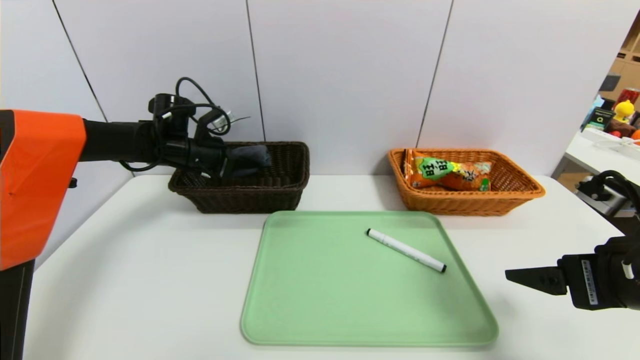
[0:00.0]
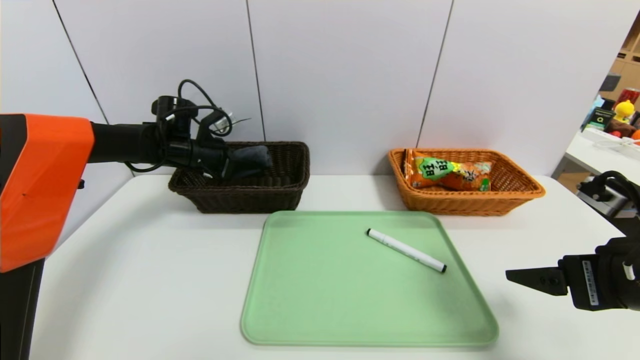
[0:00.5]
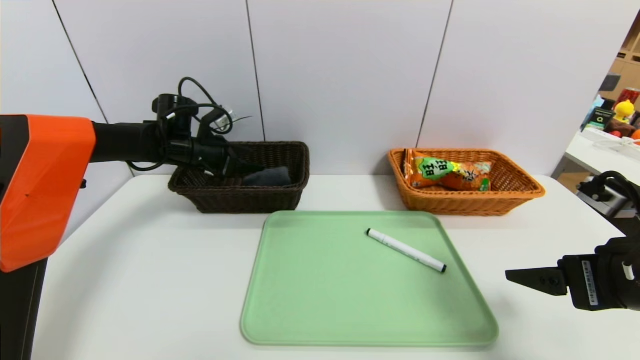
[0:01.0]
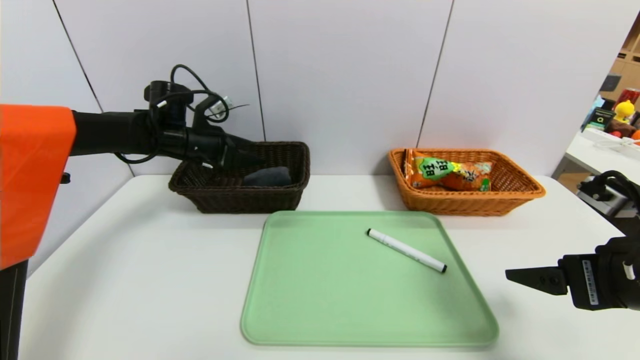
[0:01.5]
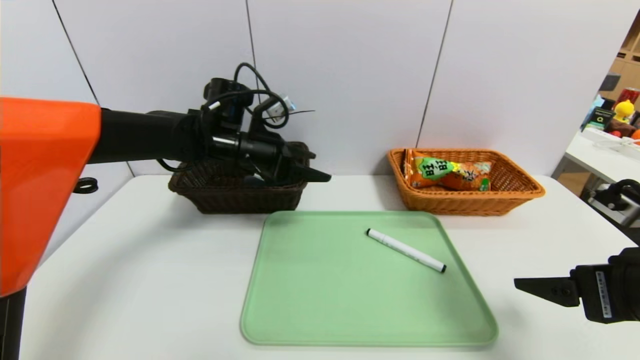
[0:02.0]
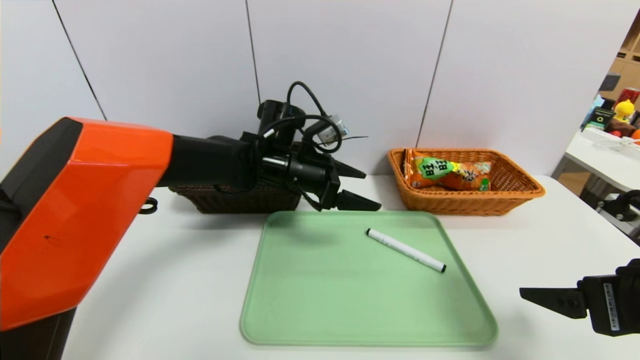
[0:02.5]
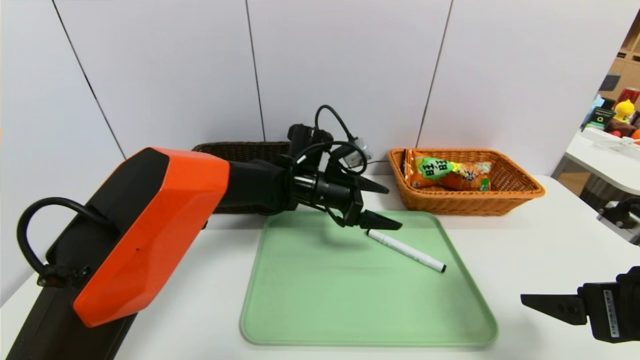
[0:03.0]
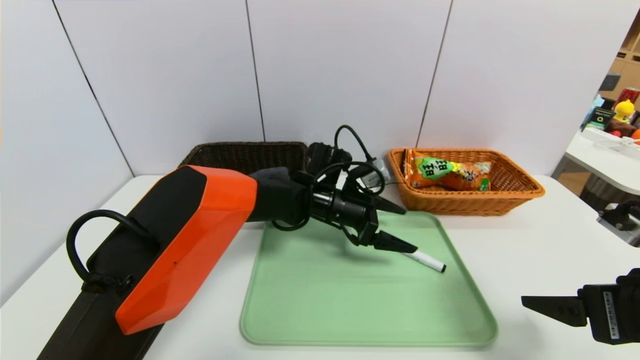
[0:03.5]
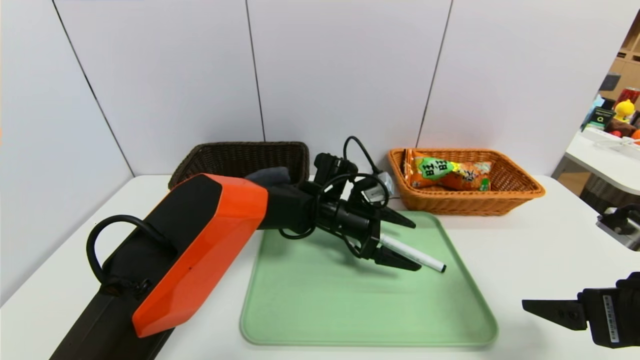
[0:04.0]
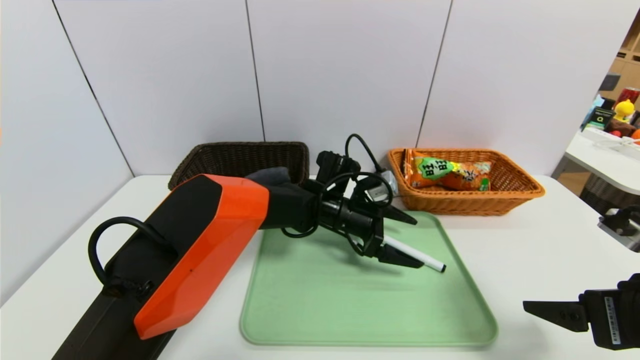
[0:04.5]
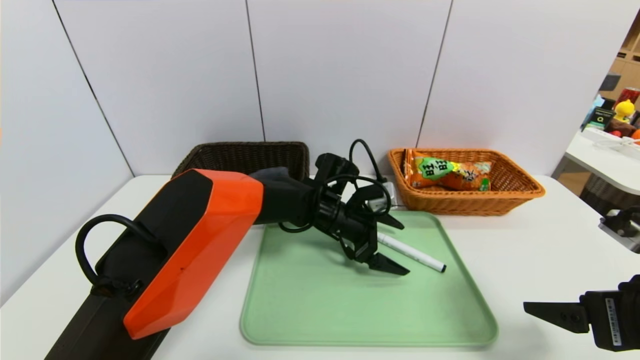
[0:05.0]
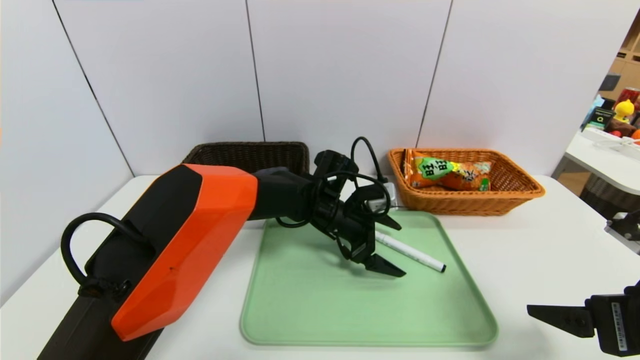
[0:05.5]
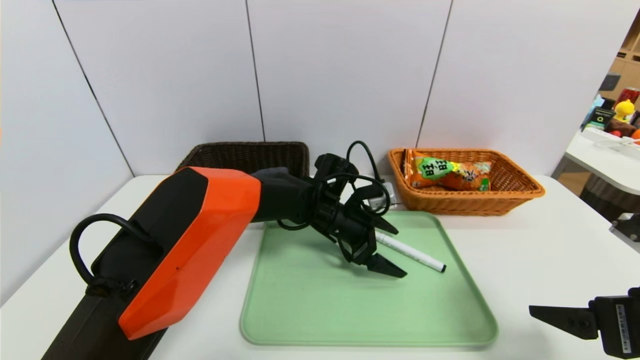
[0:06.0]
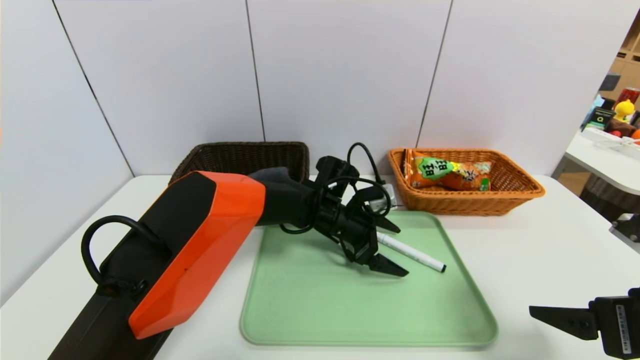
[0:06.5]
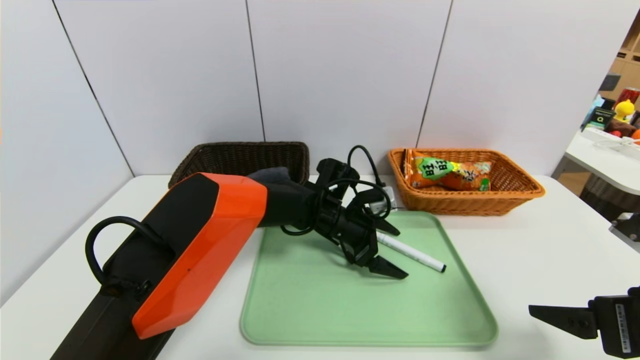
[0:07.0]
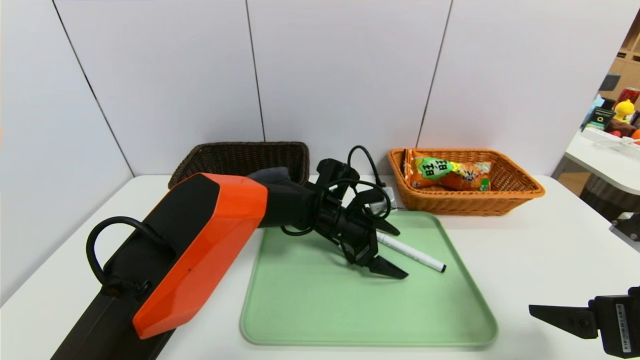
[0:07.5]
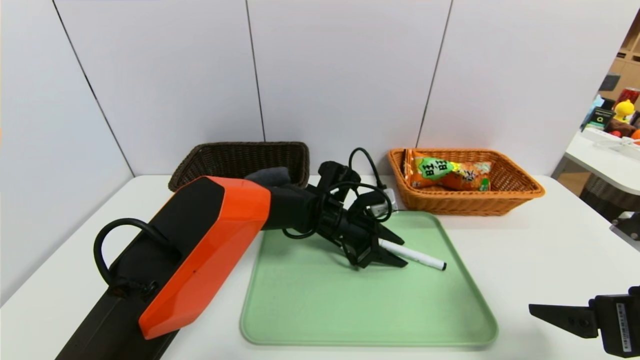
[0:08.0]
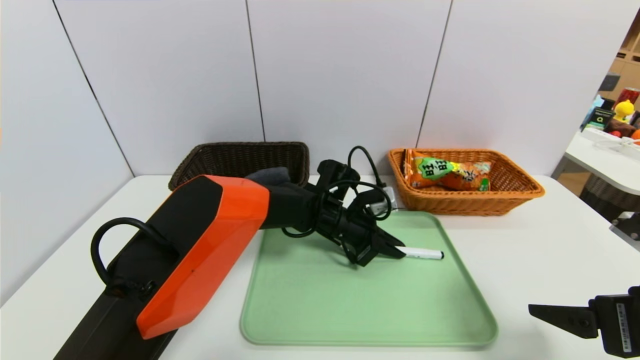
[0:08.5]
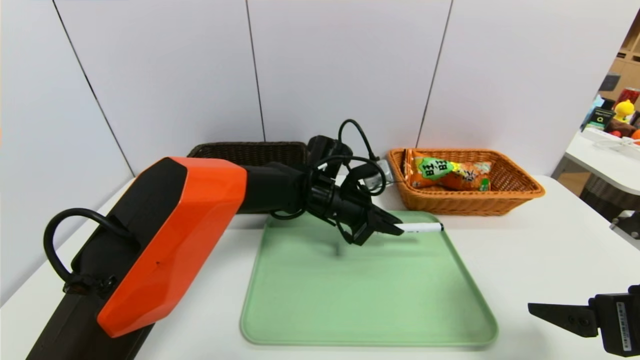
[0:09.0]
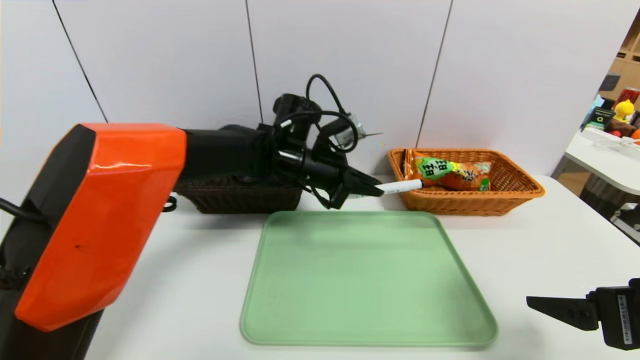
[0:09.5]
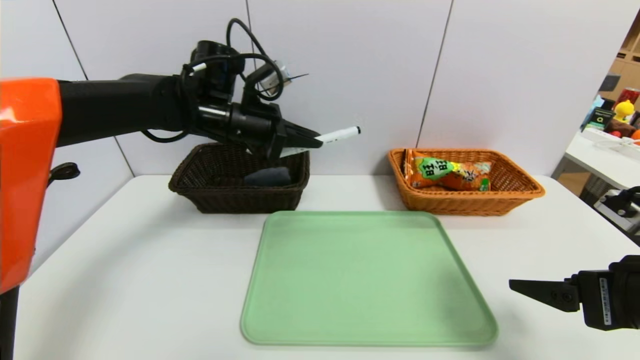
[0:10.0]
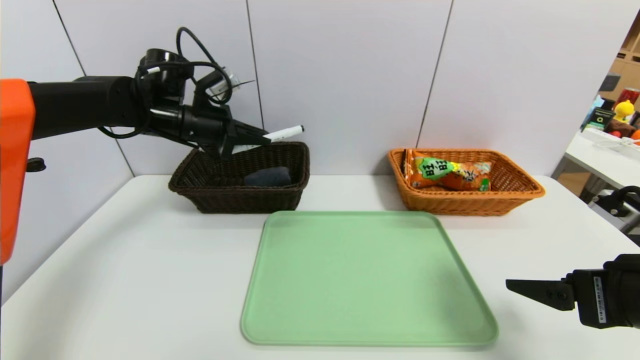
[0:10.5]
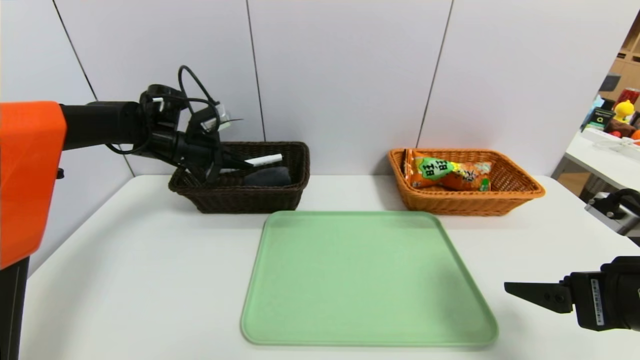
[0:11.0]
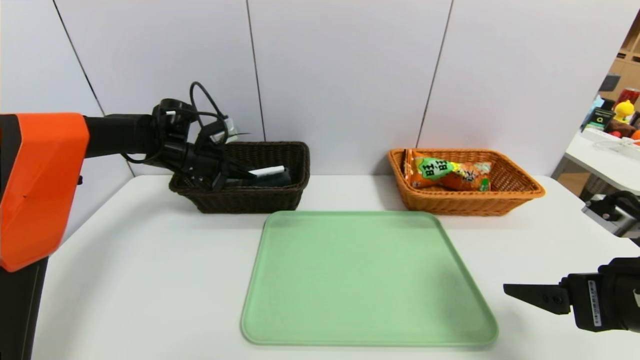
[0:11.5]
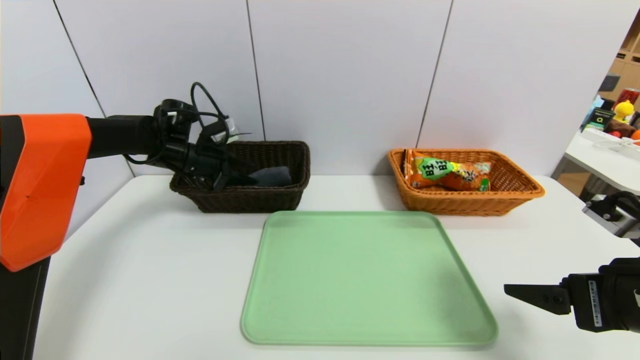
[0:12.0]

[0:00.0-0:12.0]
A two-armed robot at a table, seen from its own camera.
Task of the whole recording: place the food in the right basket with the right gripper, and place the non food items in the left basket with the left gripper.
0:00.0 to 0:02.0: The left gripper heads to the right and backward, covering approximately 15 cm, and opens its fingers.
0:02.0 to 0:04.0: The left gripper moves to the right and downward, some 20 cm.
0:04.0 to 0:06.0: There are only small adjustments of the grippers.
0:06.0 to 0:08.0: The left gripper closes its fingers.
0:08.0 to 0:10.0: The left gripper travels upward and to the left by some 25 cm, and closes its fingers.
0:10.0 to 0:12.0: The left gripper is displaced to the left, downward and forward by approximately 15 cm, and opens.

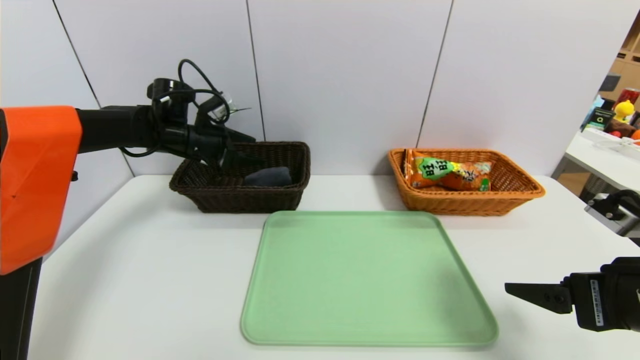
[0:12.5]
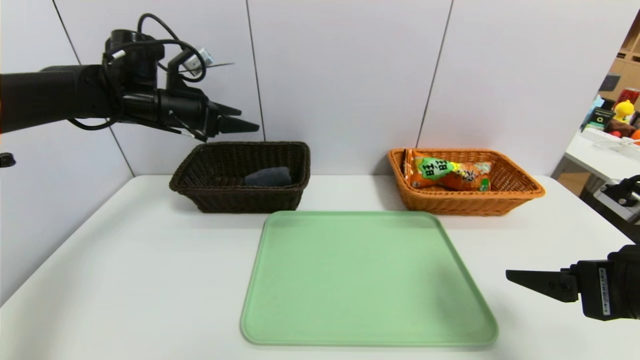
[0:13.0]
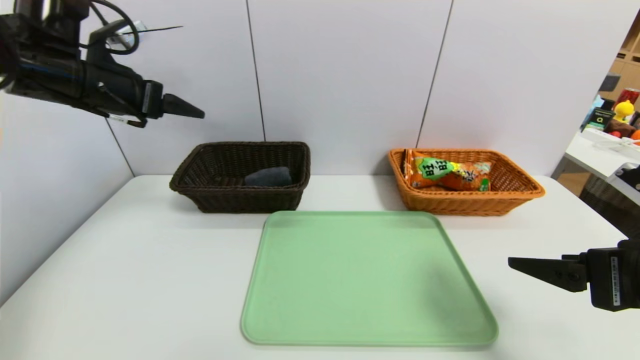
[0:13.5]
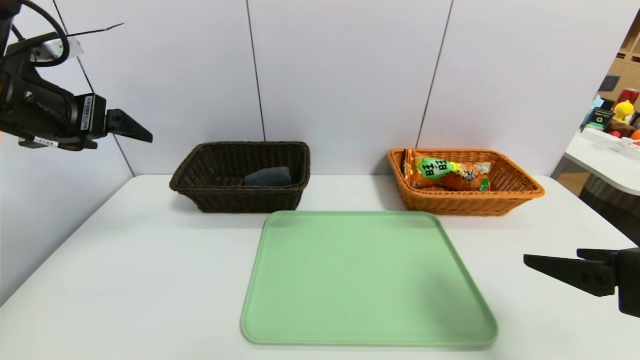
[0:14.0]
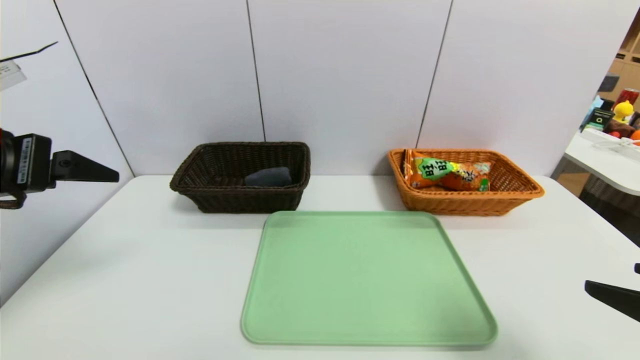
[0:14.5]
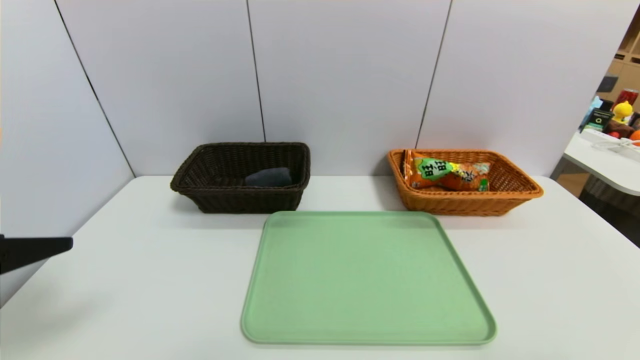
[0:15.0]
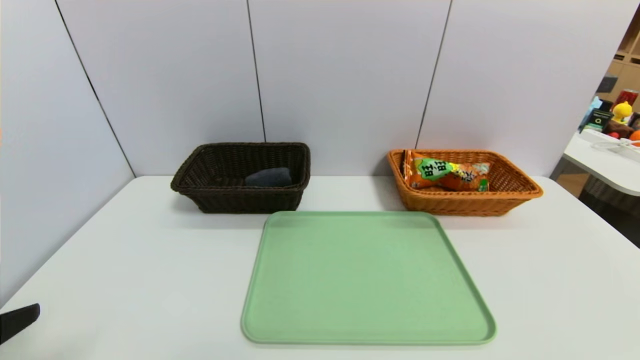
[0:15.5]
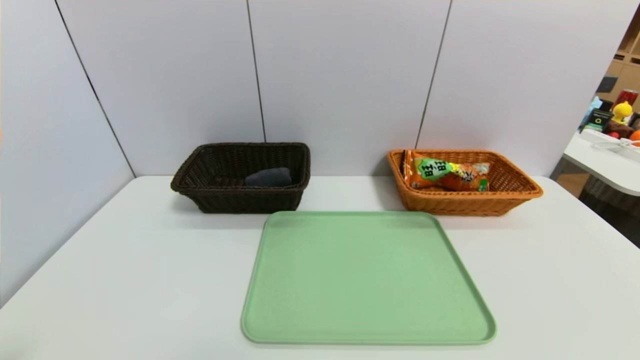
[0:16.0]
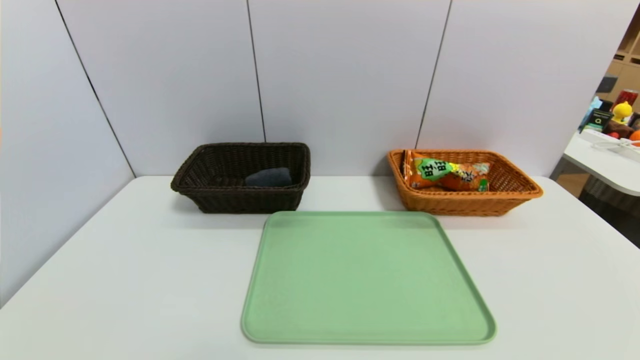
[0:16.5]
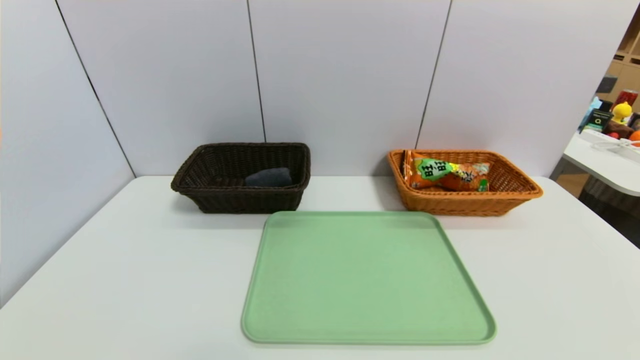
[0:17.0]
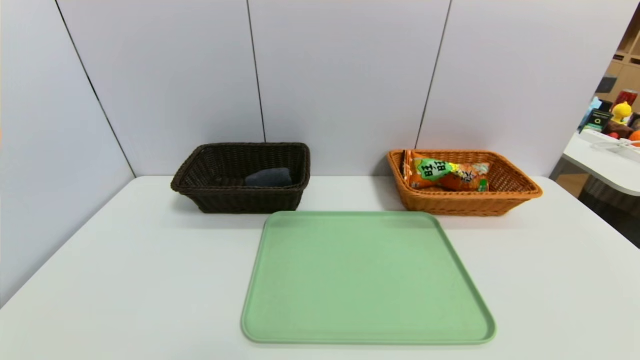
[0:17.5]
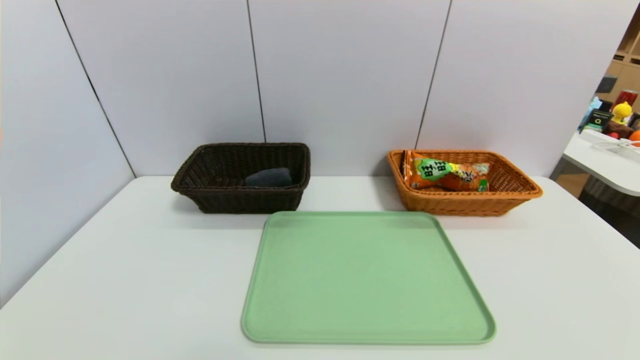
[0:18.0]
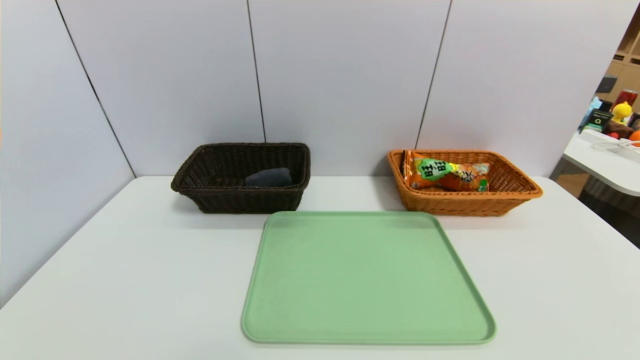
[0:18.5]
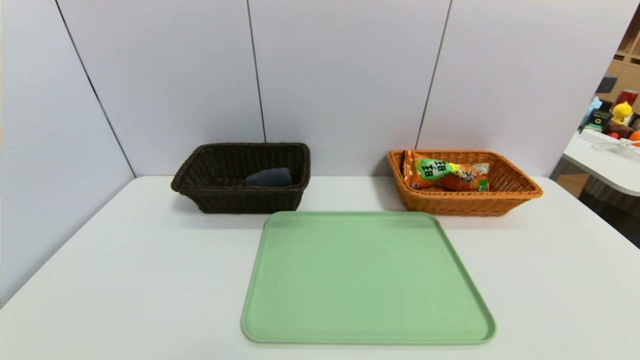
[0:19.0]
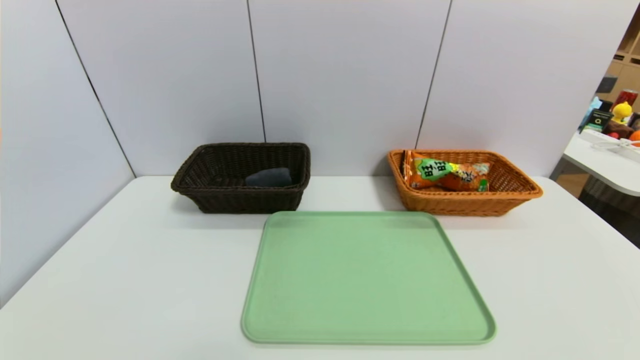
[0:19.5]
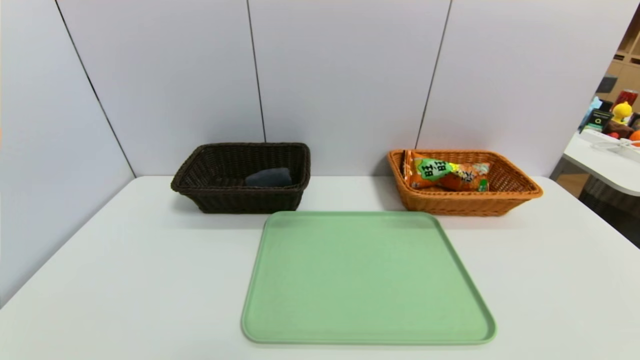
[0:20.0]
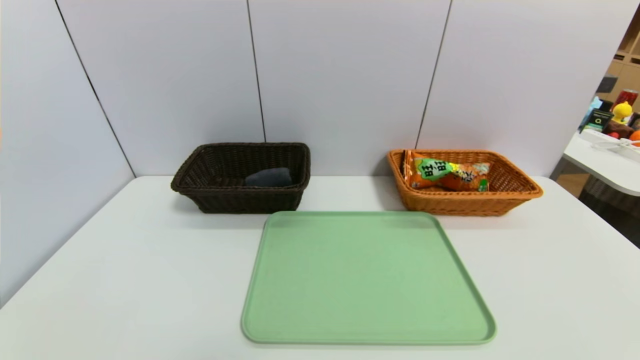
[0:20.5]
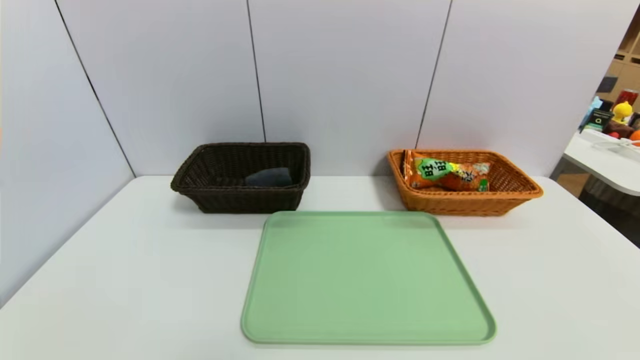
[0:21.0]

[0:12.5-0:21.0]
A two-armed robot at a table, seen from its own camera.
Task of the whole recording: place the food in the right basket with the right gripper, and place the non food items in the left basket with the left gripper.
0:12.5 to 0:14.5: The left gripper moves backward, approximately 30 cm. The right gripper moves backward, roughly 10 cm.
0:14.5 to 0:16.5: The right gripper travels backward by roughly 15 cm. The left gripper heads backward and downward, covering some 25 cm.
